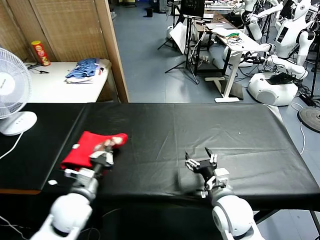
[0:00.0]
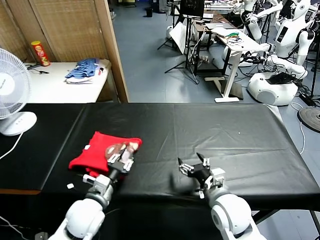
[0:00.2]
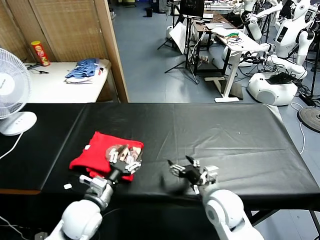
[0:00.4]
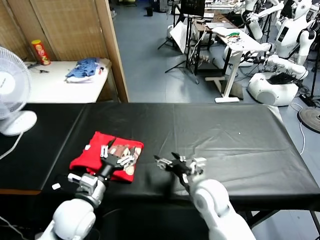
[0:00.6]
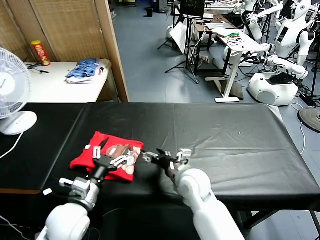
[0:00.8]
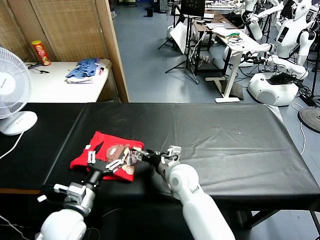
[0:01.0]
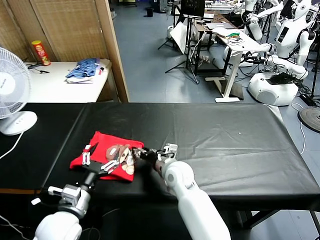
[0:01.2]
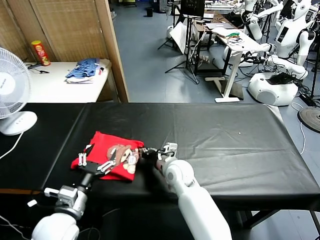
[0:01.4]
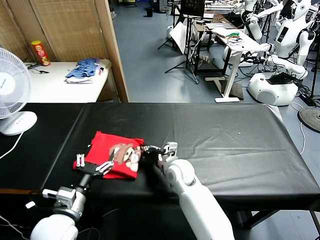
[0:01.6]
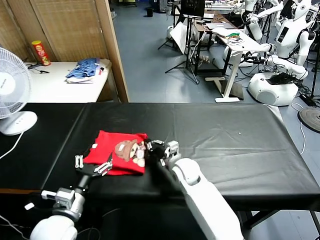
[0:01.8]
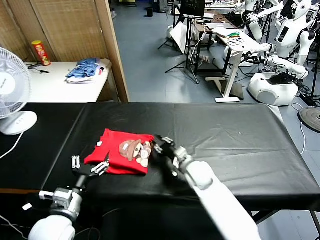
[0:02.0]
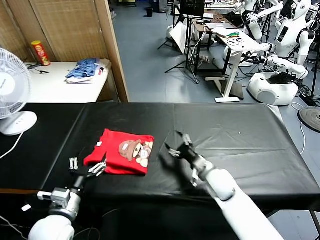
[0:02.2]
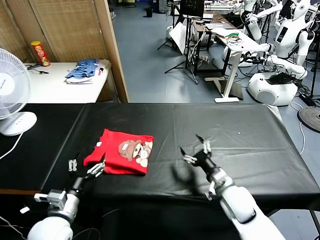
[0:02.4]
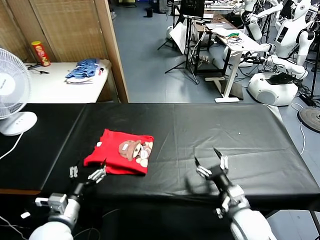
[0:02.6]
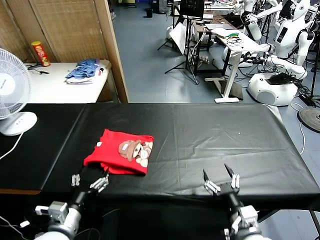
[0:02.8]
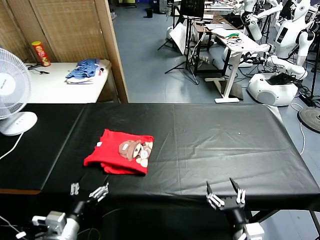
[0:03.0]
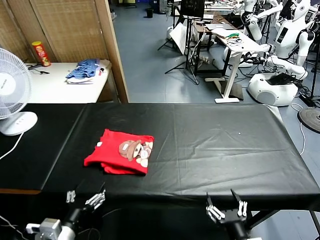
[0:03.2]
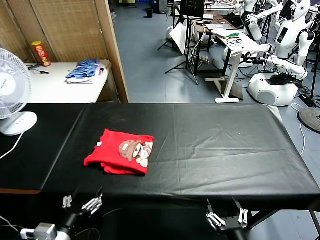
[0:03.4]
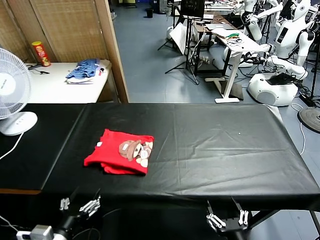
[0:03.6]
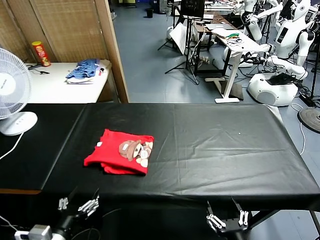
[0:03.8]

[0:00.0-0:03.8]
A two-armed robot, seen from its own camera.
Task of the whole recording: fold and organize the clothes.
Step, 0:00.6 to 0:03.0: Drag the clothes to the center of the table.
0:00.0 to 0:01.2: The right gripper moves to the left and forward, approximately 20 cm. Meanwhile the left gripper travels backward by roughly 5 cm, and opens.
0:01.2 to 0:02.6: The right gripper is displaced to the right and backward by approximately 25 cm, and closes, then reopens.
0:02.6 to 0:03.8: The left gripper heads backward, covering some 10 cm. The right gripper heads backward, covering roughly 20 cm.

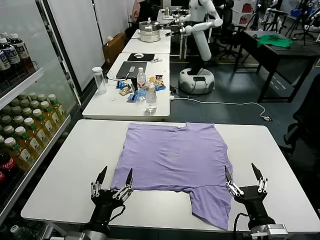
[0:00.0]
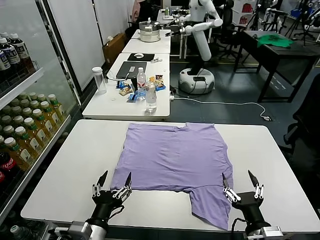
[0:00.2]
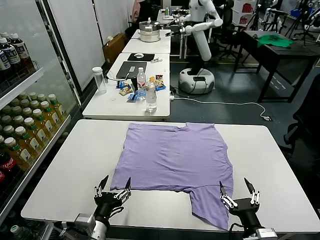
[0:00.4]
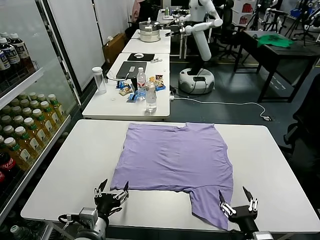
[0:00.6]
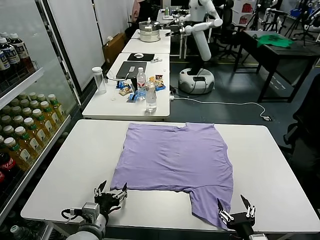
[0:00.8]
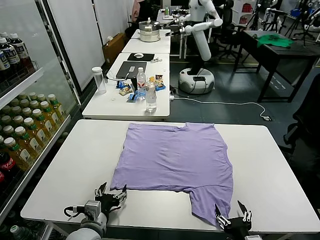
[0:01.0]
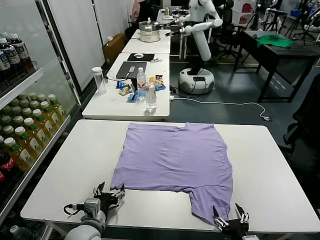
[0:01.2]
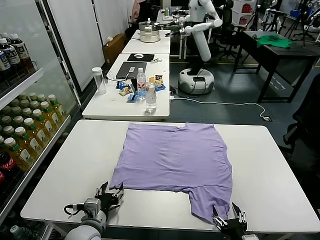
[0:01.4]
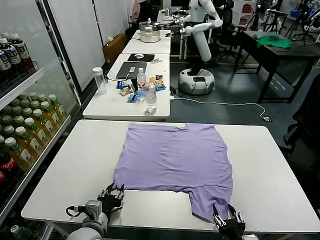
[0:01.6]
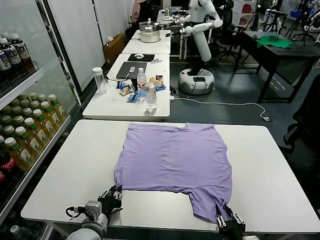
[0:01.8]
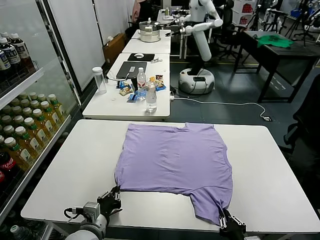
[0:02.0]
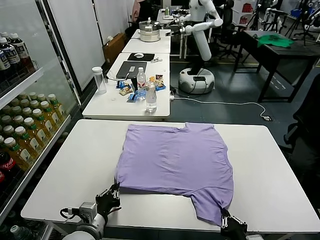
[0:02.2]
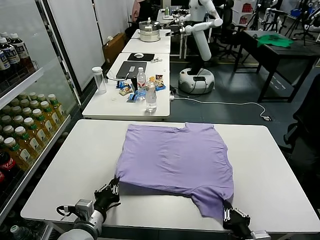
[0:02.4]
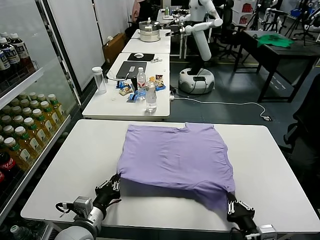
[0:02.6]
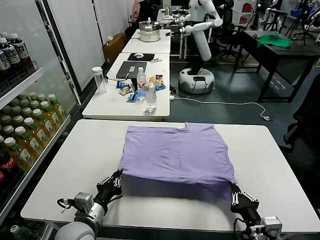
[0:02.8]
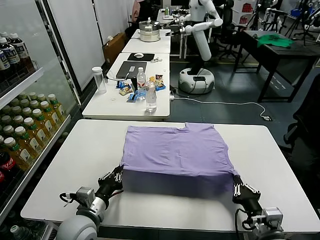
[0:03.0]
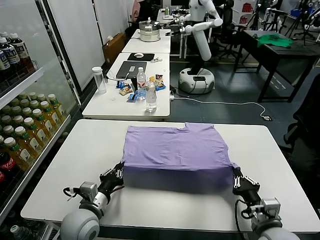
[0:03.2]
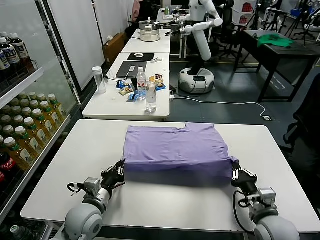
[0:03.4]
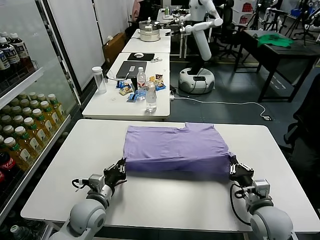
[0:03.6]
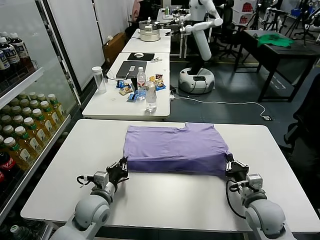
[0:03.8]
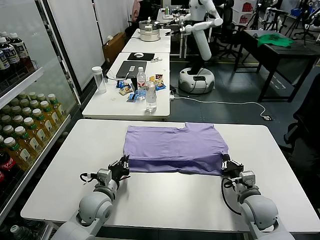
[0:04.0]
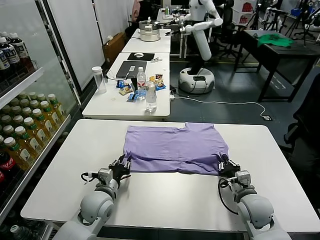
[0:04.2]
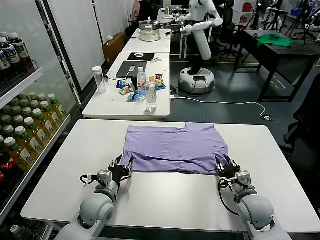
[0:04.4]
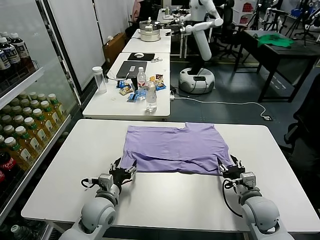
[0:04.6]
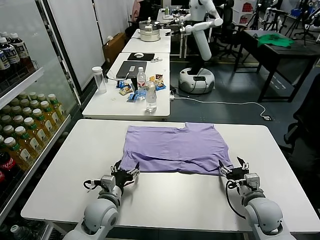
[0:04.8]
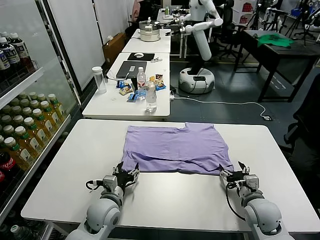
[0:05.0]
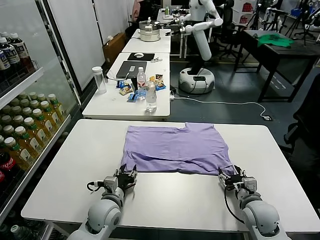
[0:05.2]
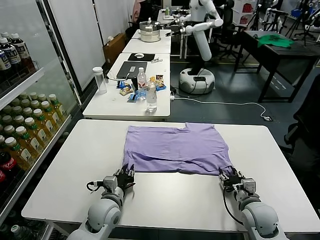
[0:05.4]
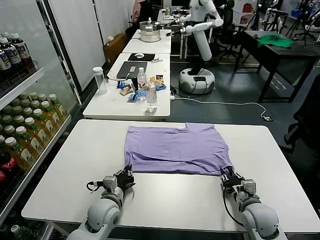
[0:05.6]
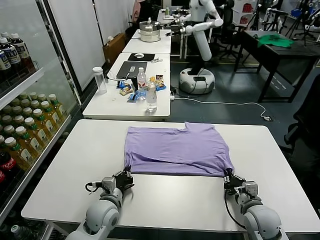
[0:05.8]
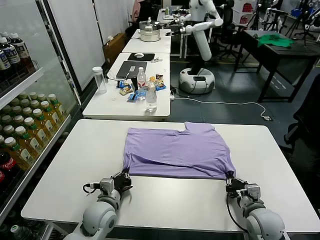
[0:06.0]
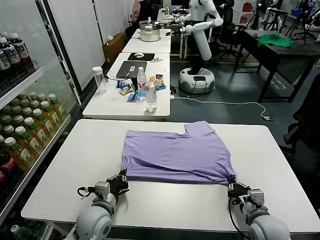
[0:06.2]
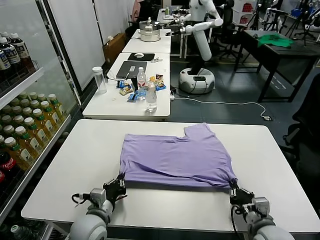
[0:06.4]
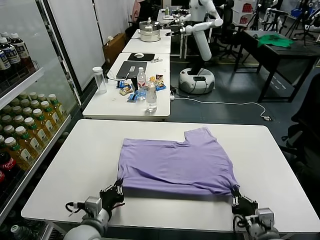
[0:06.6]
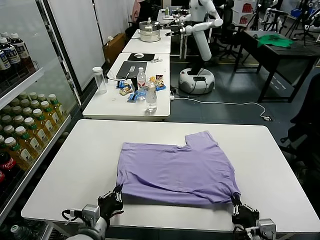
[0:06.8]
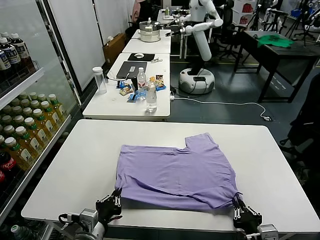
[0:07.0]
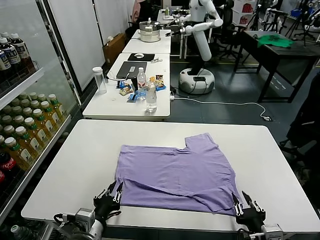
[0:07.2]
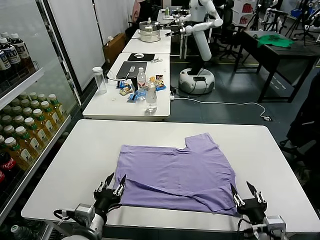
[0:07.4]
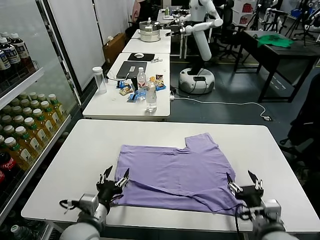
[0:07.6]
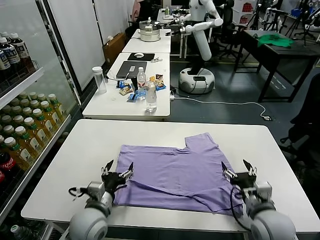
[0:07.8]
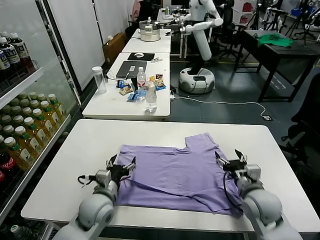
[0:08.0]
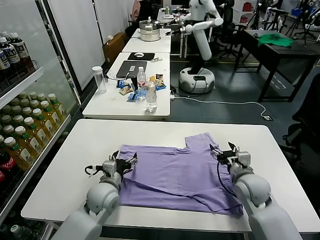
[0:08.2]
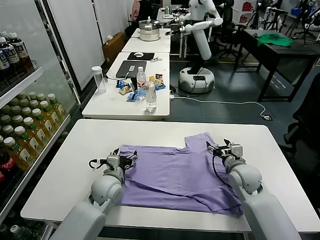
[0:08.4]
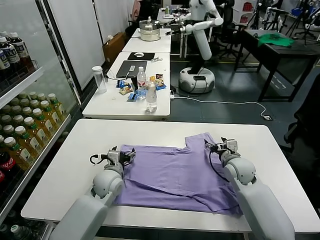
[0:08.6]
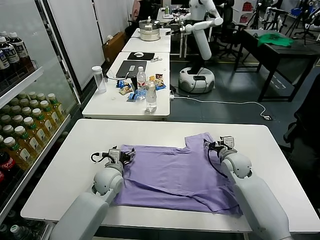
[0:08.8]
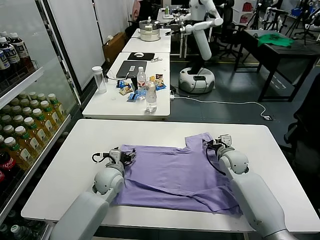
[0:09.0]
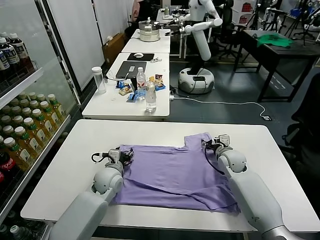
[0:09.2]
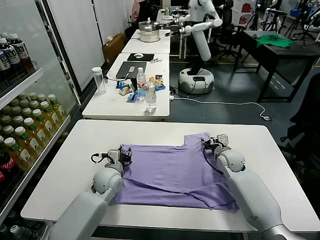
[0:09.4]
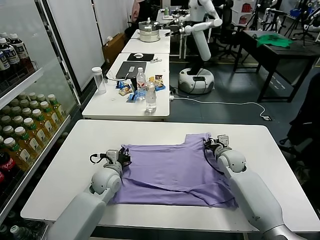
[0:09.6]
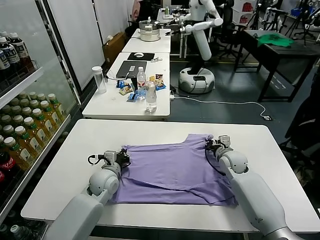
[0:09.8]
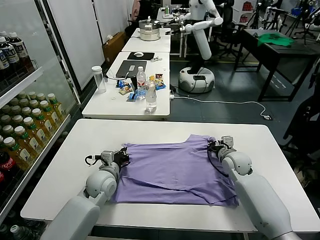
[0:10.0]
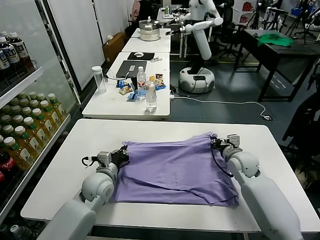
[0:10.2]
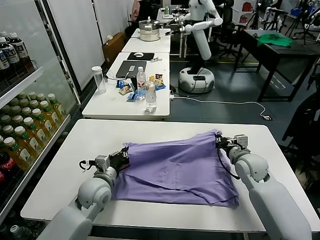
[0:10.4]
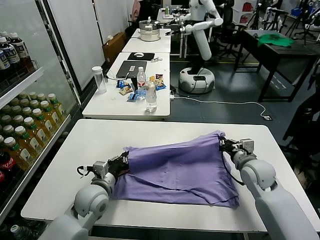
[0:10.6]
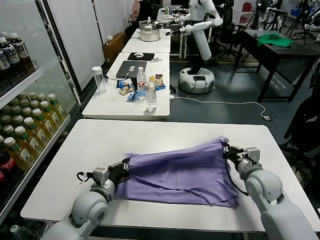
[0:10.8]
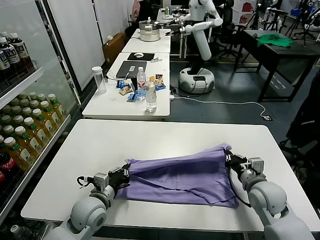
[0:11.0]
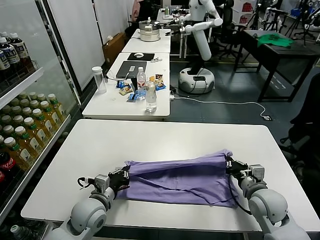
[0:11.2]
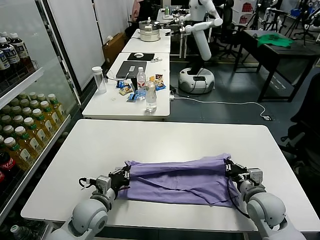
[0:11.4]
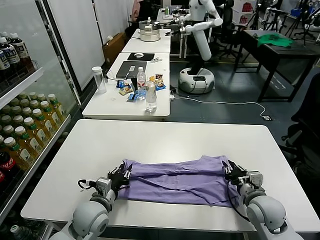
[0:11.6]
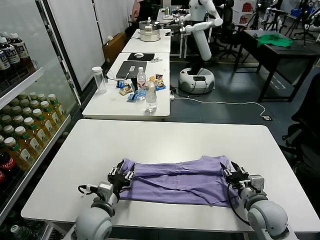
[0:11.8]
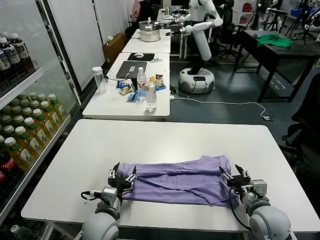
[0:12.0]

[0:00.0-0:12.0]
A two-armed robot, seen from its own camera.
Task of the whole recording: fold and organize the clothes.
Step, 0:00.0 to 0:01.8: use both grippers simultaneously to clamp the lower edge of the clothing fabric.
Step, 0:02.2 to 0:04.6: use both grippers to drag the lower edge of the fabric forward and fold it over the upper edge.
Step, 0:04.8 to 0:07.2: Drag the clothes downward with both gripper.
Step, 0:07.4 to 0:09.6: use both grippers simultaneously to clamp the upper edge of the clothing fabric.
Step, 0:10.0 to 0:11.6: use both grippers to drag the upper edge of the fabric backward and fold it over the lower edge.
0:01.6 to 0:03.0: The right gripper moves forward and upward, roughly 10 cm, and closes its fingers. Meanwhile the left gripper shifts by about 5 cm, and closes.
0:03.0 to 0:04.4: The left gripper shifts some 5 cm forward, and opens. The right gripper travels forward by roughly 10 cm, and opens up.
0:04.4 to 0:06.0: The left gripper closes; the right gripper ends up some 5 cm from where it was, and closes its fingers.
0:06.0 to 0:07.6: The left gripper moves backward and upward, some 10 cm, and opens up. The right gripper heads upward, covering approximately 5 cm, travels backward and back again, some 15 cm each way, and opens its fingers.
0:07.6 to 0:09.0: The grippers both shift forward by some 25 cm.
0:09.0 to 0:10.4: The right gripper is displaced backward and upward by some 10 cm, and closes, while the left gripper is displaced backward by about 5 cm, and closes up.
0:10.4 to 0:12.0: The right gripper moves backward, some 15 cm, and opens up. Meanwhile the left gripper travels backward by roughly 10 cm, and opens.

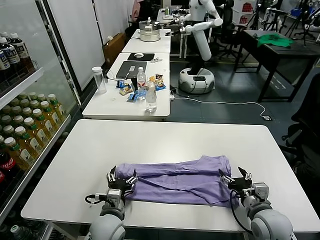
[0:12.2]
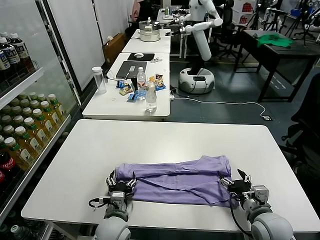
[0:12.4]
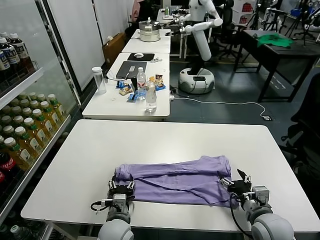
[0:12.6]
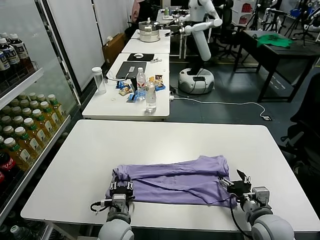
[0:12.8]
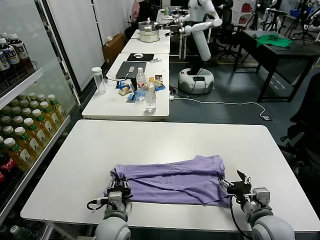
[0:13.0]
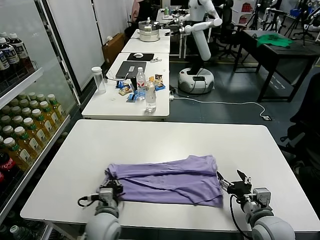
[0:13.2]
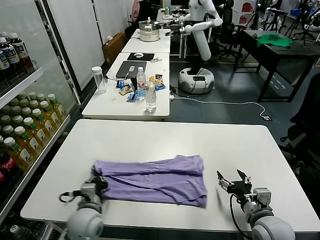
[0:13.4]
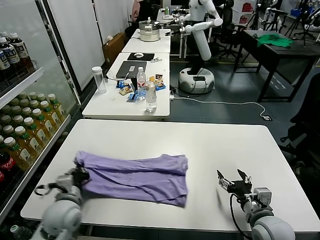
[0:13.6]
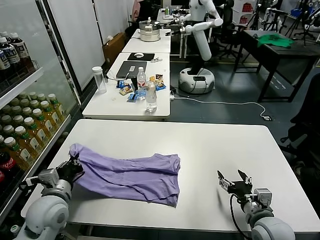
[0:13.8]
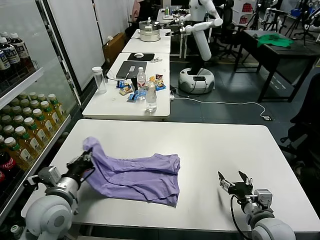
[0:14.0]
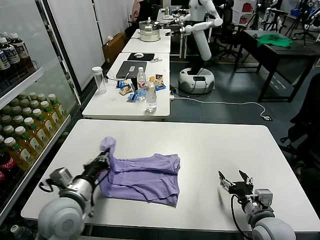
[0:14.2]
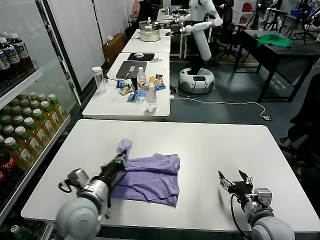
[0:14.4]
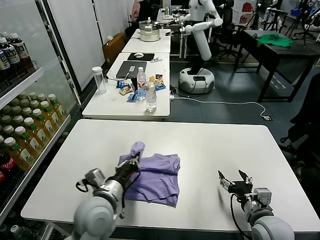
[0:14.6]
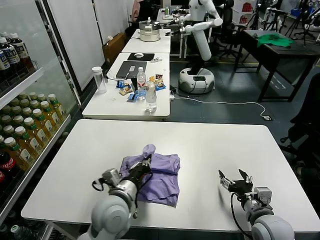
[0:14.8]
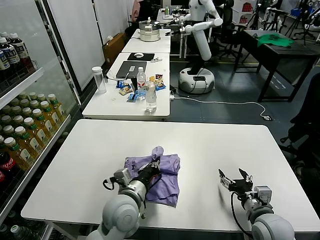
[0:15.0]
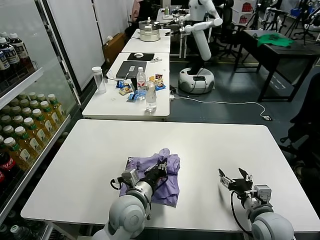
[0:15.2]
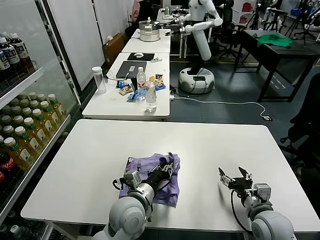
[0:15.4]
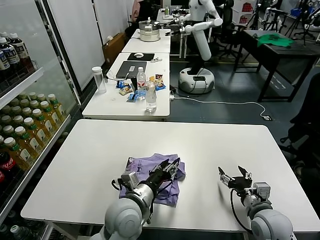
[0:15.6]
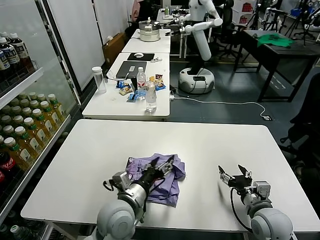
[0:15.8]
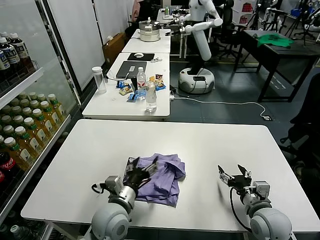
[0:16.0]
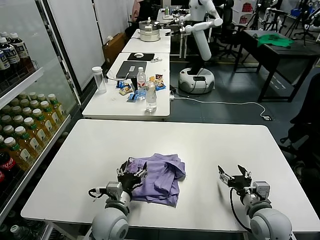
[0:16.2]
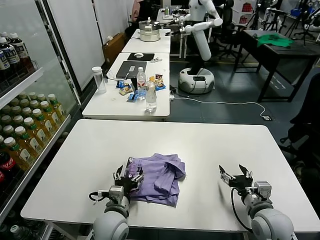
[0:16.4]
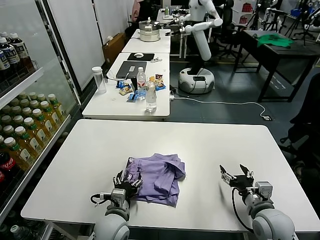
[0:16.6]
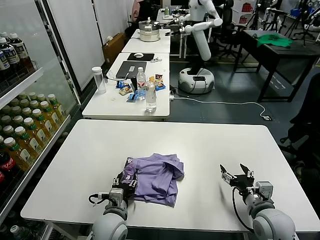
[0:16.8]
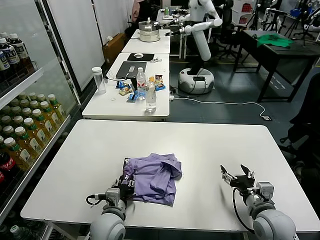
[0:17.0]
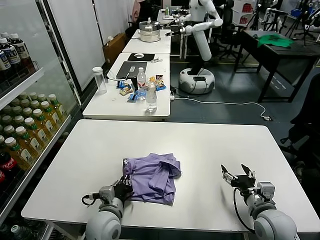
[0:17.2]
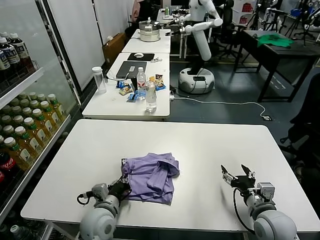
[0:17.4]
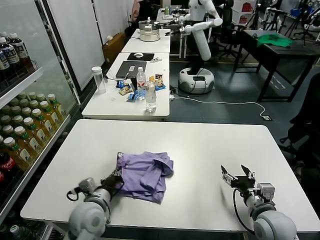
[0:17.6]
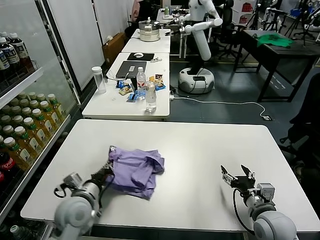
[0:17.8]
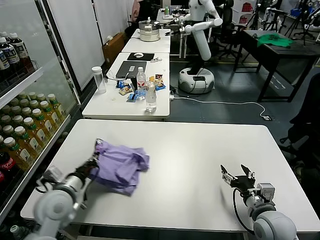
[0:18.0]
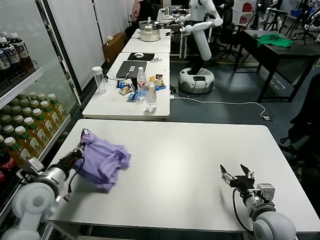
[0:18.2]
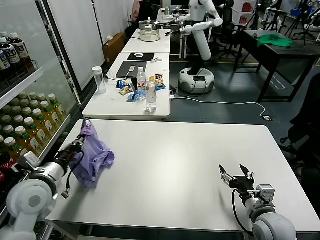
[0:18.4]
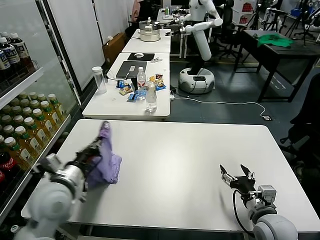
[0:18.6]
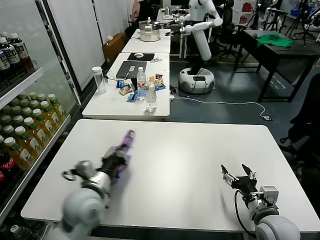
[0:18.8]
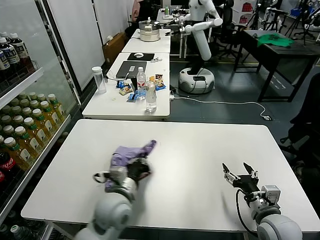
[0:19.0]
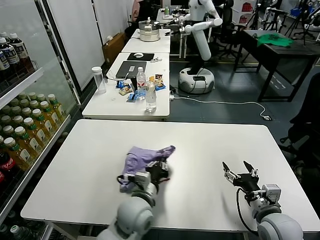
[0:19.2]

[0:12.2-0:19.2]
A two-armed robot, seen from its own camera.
Task of the whole recording: fold and organize the clothes.
Step, 0:12.2 to 0:13.2: use the left gripper to clamp the left edge of the fabric.
Step, 0:13.6 to 0:15.6: use the left gripper to drag the left edge of the fabric to the left and folds it over the right edge.
0:12.2 to 0:13.6: The left gripper is displaced to the left and upward by about 15 cm, and closes its fingers.
0:13.6 to 0:15.0: The left gripper moves to the right, approximately 20 cm.
0:15.0 to 0:16.4: The left gripper heads downward, covering roughly 5 cm, and opens.
0:16.4 to 0:17.8: The left gripper heads to the left, covering approximately 10 cm, and closes its fingers.
0:17.8 to 0:19.2: The left gripper moves to the right, about 15 cm.
